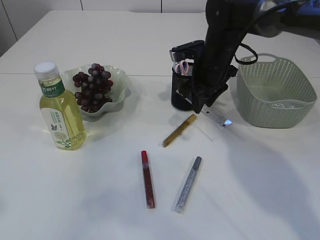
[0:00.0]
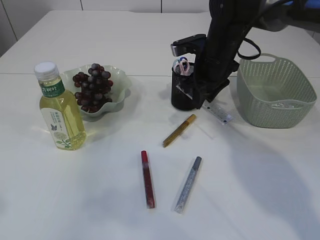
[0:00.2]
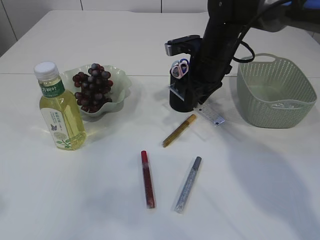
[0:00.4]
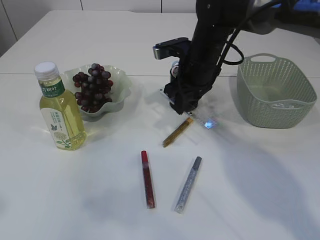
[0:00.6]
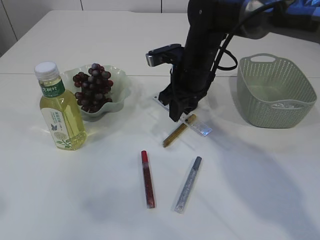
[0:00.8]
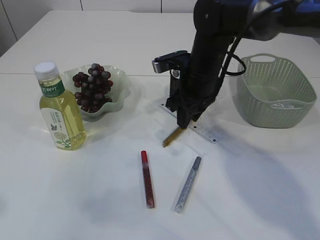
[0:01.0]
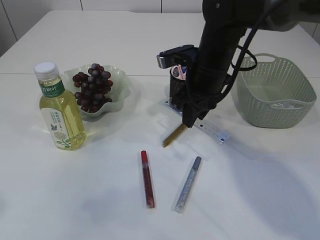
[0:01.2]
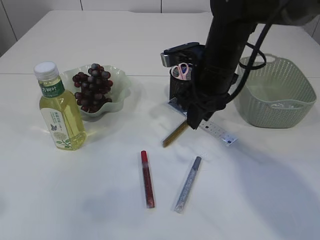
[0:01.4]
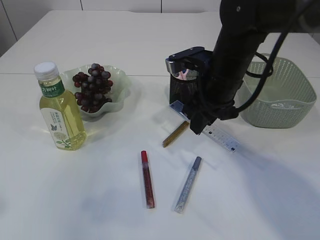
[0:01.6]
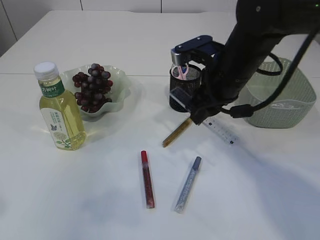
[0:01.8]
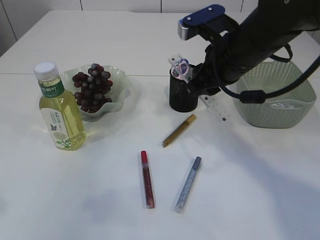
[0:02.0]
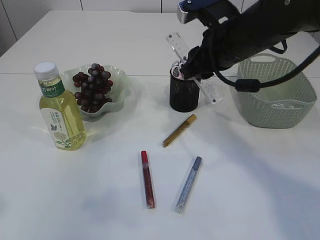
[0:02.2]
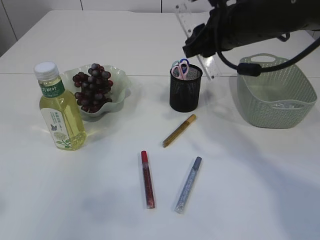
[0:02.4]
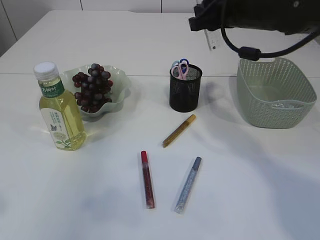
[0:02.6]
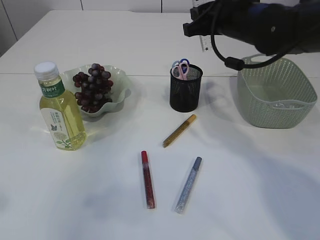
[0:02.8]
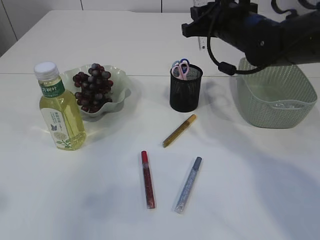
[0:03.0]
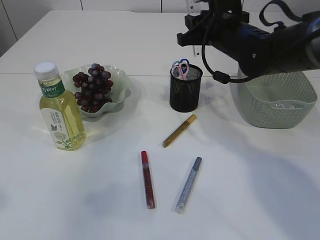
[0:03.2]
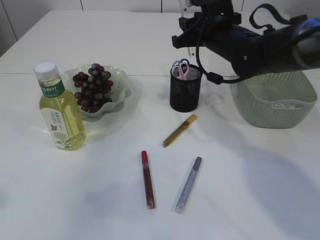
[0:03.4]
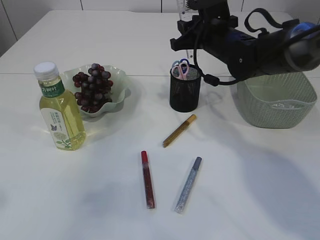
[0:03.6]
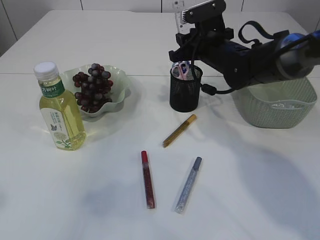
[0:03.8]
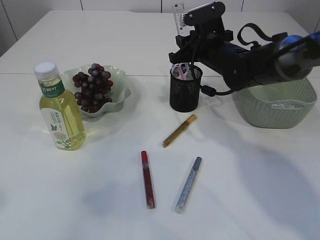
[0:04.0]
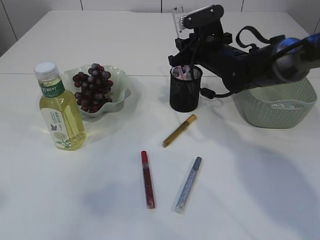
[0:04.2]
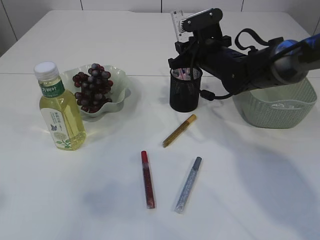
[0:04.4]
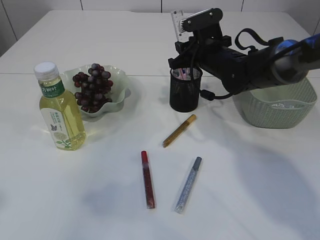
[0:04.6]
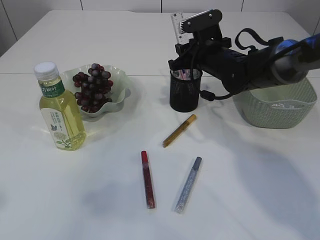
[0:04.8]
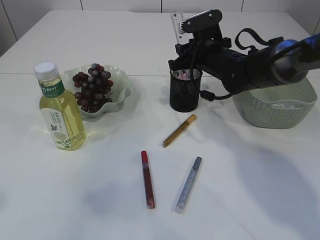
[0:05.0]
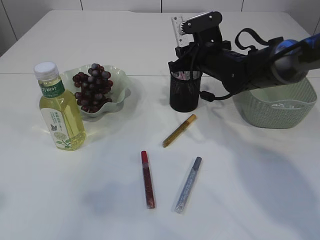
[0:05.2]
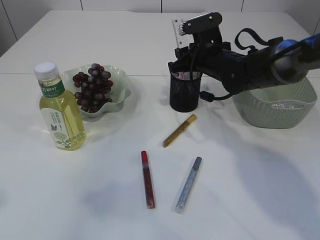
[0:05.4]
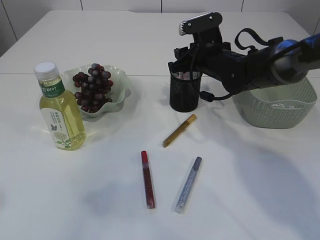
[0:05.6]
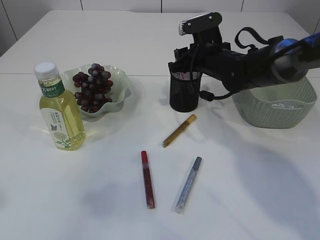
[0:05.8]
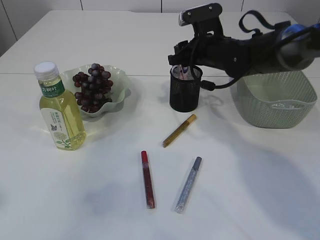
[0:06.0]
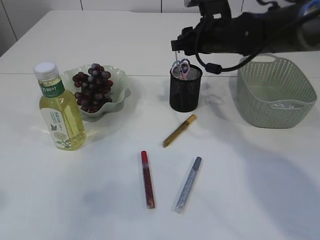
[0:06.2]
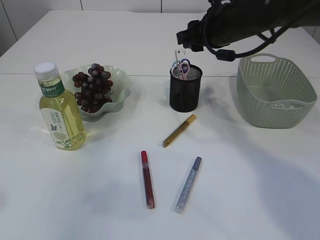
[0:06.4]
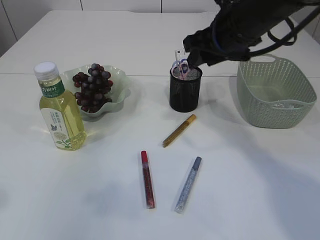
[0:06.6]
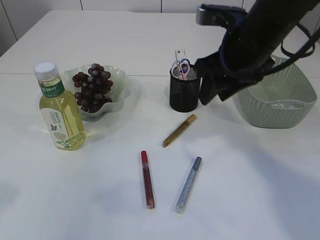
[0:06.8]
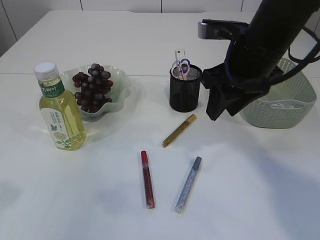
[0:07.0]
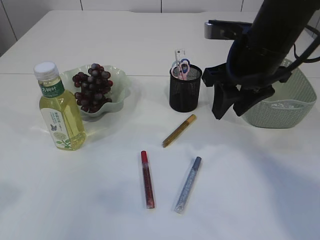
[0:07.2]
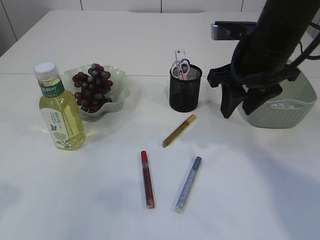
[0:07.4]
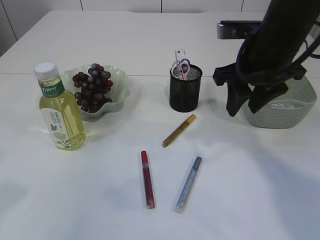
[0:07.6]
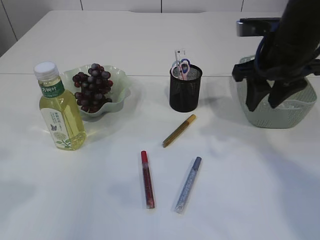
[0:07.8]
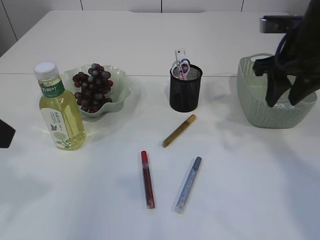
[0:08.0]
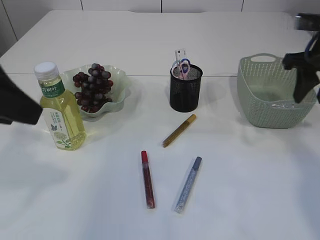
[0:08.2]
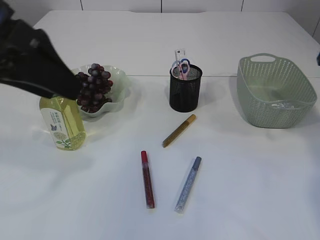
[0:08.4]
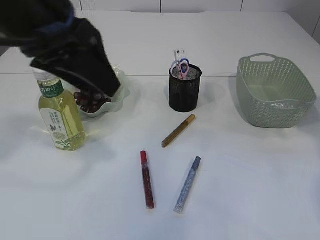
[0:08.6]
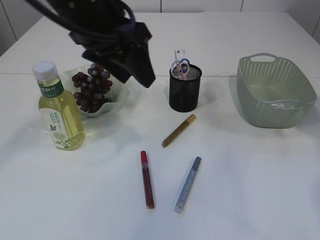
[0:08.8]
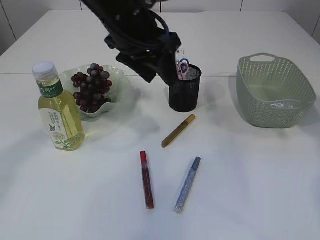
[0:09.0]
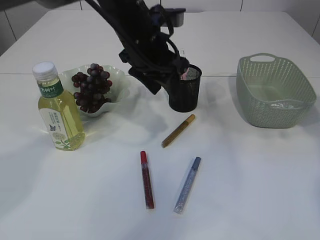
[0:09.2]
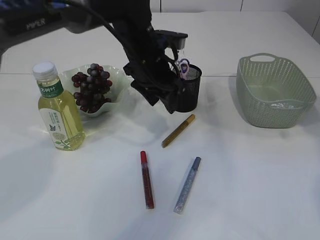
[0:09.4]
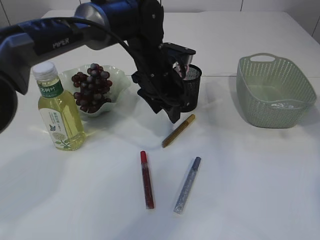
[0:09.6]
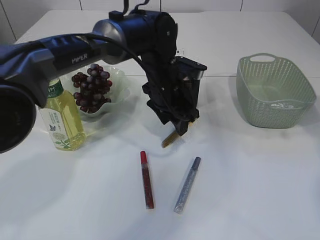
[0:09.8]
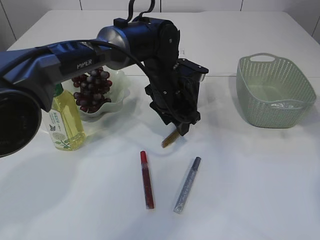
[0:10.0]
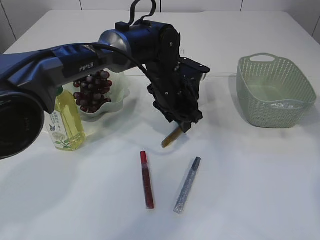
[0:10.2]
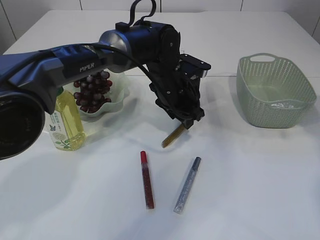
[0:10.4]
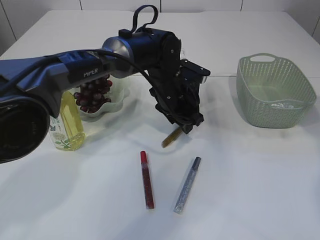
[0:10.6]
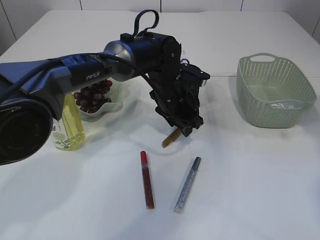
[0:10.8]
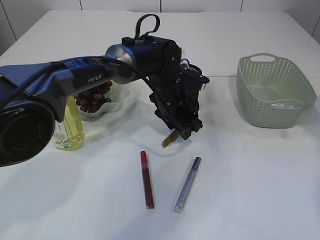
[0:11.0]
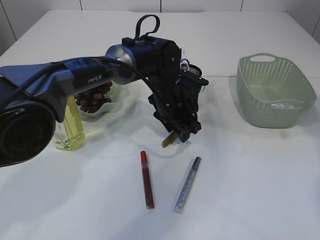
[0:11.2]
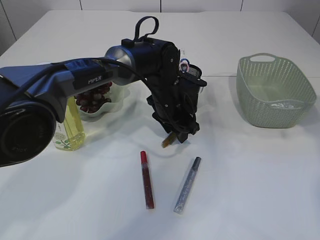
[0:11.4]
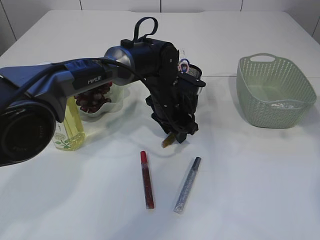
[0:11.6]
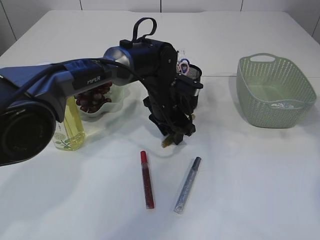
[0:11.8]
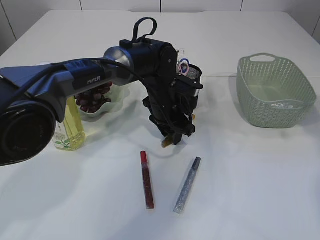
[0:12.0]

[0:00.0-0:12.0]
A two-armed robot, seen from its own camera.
Step, 0:00.0 to 0:06.4: Place the ruler into the pen holder.
0:00.0 to 0:01.6: The right gripper goes roughly 10 cm backward.
0:01.6 to 0:03.0: The right gripper travels forward by approximately 5 cm.
0:03.0 to 0:04.4: The right gripper moves downward, approximately 5 cm.
0:04.4 to 0:06.0: The grippers make only small movements.
0:06.0 to 0:07.6: The right gripper travels backward and upward by about 15 cm.
0:07.6 to 0:09.0: The right gripper heads to the right, covering some 20 cm, while the left gripper shifts about 30 cm forward and to the right.
0:09.0 to 0:10.4: The left gripper goes about 20 cm downward, to the right and forward.
0:10.4 to 0:12.0: The grippers make only small movements.

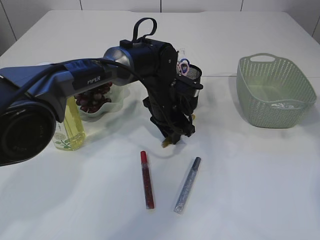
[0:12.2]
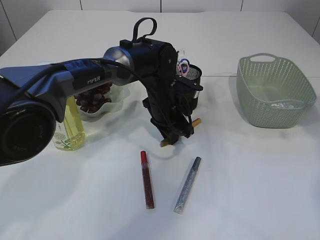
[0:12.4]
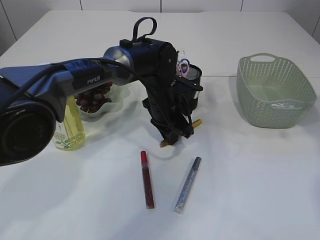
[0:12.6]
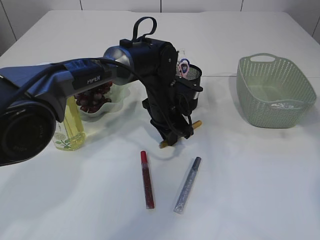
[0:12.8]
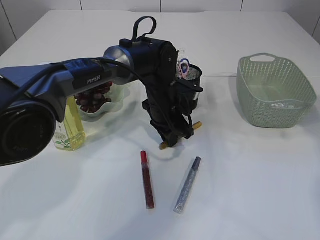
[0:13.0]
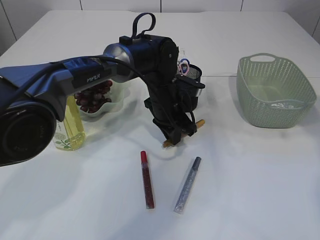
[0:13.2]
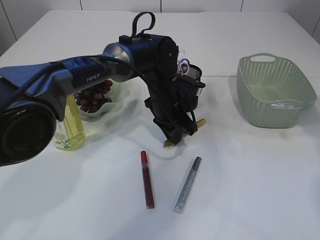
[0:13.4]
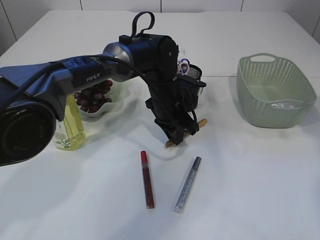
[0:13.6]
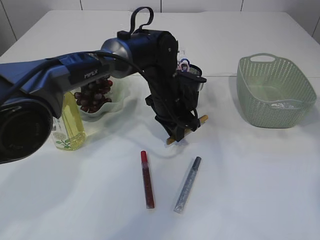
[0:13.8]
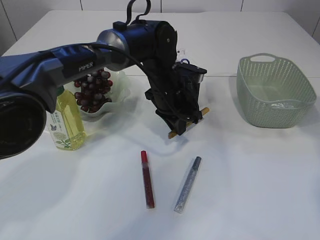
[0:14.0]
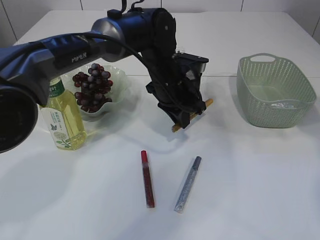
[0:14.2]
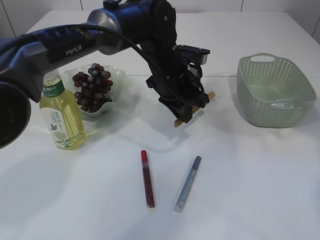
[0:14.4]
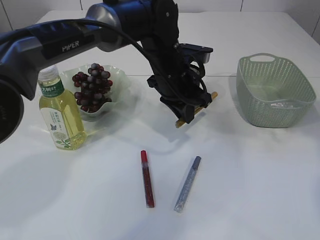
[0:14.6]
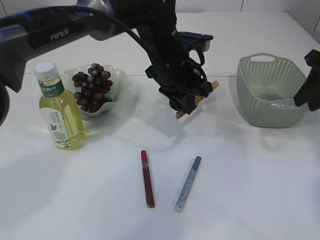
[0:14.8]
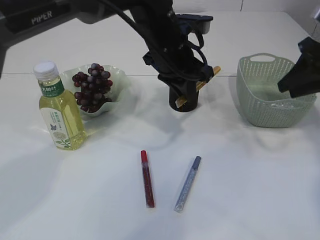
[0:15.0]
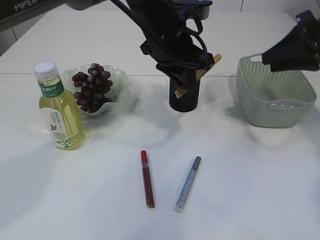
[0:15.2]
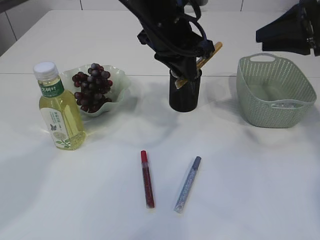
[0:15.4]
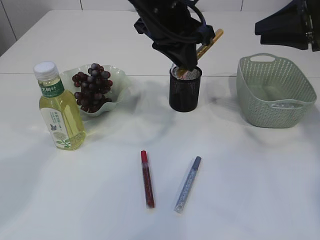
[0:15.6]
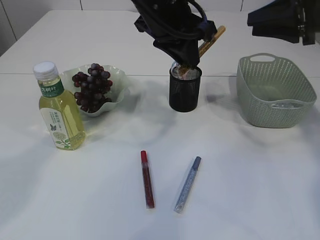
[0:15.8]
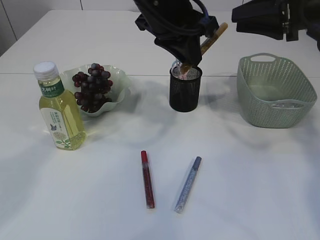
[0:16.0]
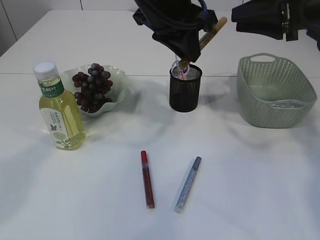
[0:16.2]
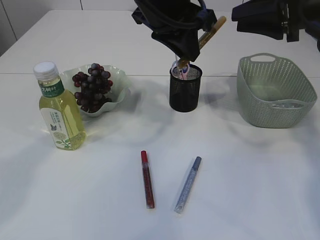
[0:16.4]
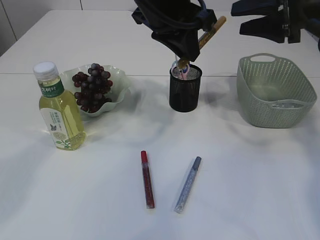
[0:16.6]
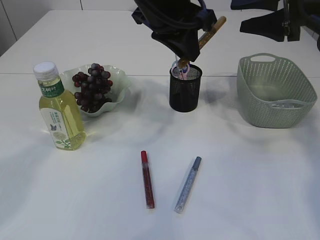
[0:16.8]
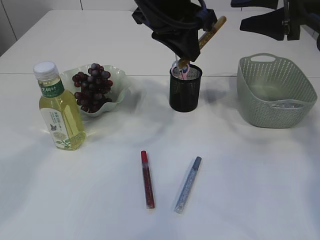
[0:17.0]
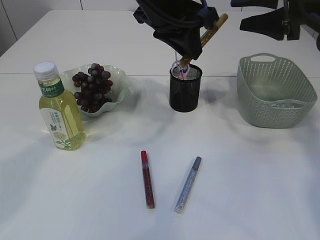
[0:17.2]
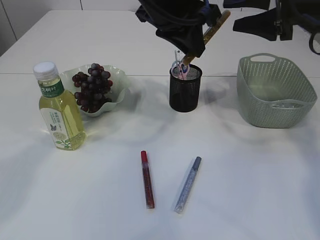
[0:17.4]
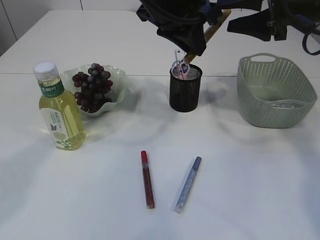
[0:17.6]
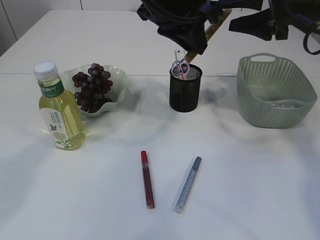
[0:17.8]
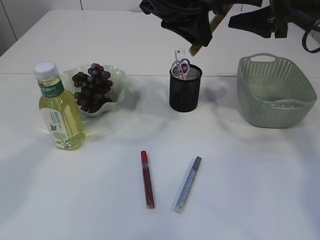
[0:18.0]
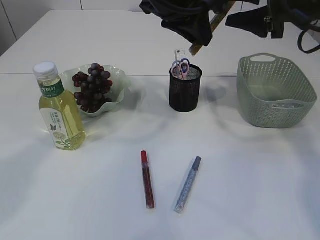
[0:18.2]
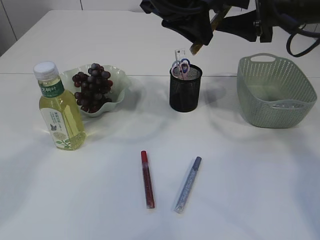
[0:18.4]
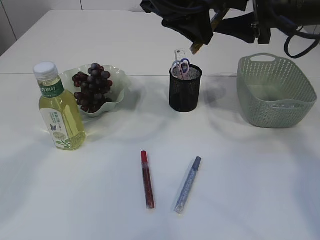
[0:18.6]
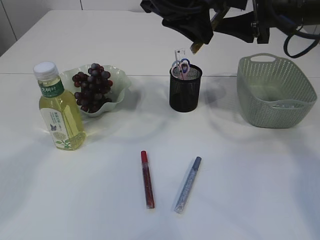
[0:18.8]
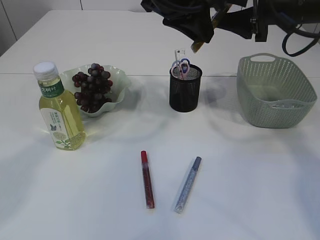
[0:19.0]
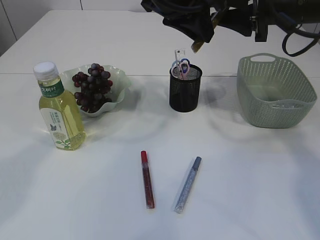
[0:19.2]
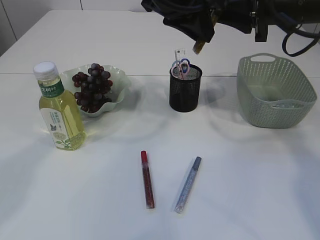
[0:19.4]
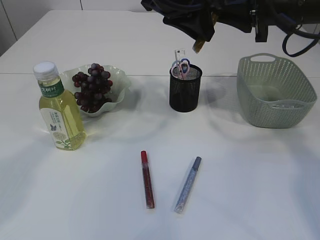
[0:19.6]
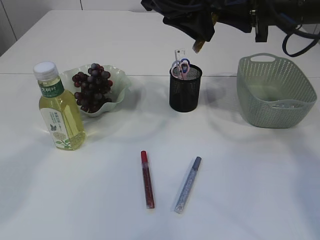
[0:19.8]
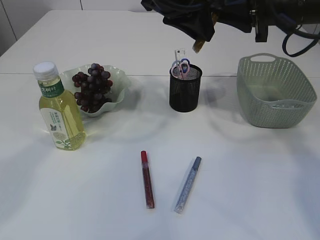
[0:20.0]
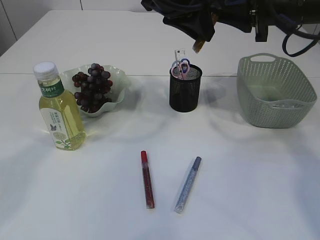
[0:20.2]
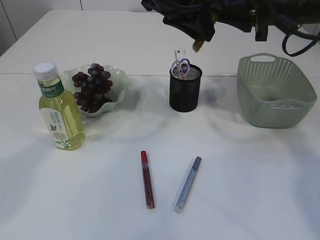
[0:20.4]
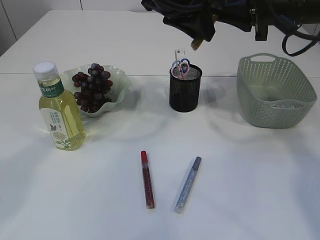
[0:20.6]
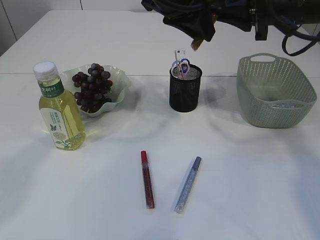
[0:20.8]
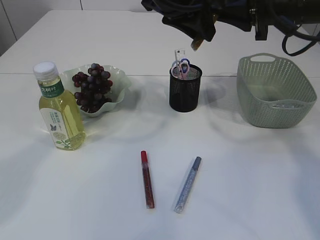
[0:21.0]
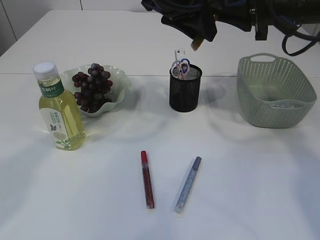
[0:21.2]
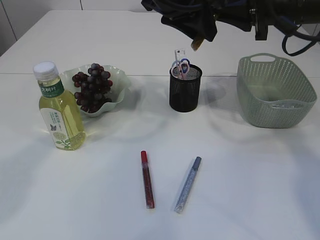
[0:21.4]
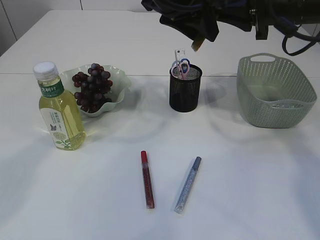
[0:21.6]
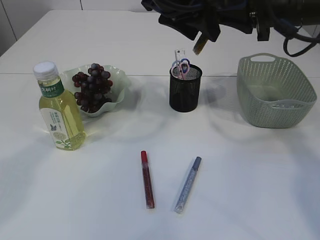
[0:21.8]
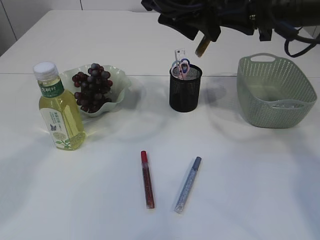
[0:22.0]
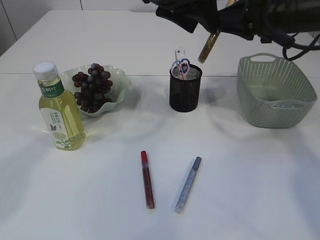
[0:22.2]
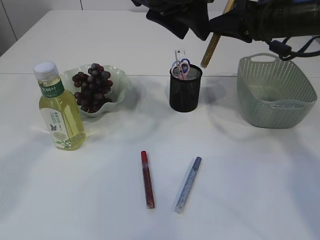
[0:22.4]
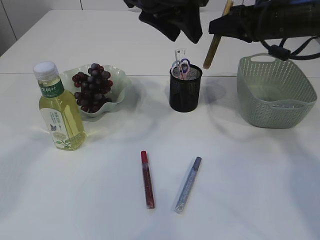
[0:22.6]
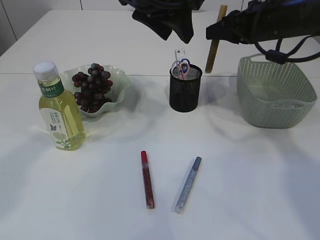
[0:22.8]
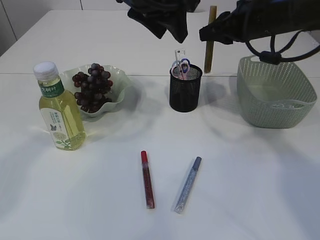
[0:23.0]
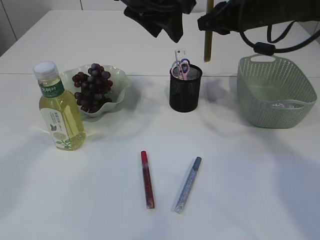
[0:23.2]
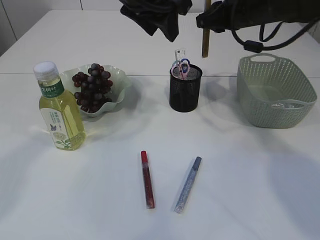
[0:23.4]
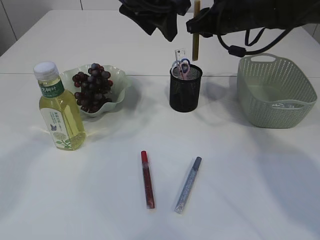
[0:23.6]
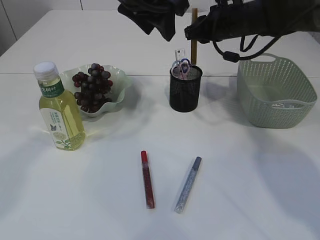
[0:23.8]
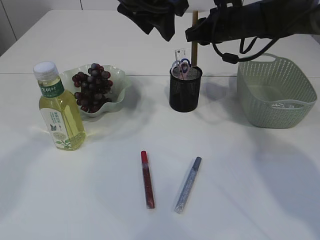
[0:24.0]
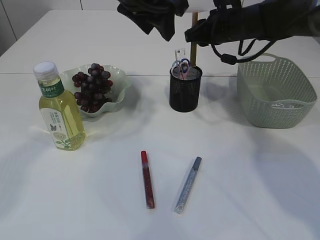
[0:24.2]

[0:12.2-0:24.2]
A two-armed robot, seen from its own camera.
Step, 0:12.2 to 0:14.4: pick up the yellow glue.
0:12.2 to 0:13.8: There are only small adjustments of the grippers.
0:13.8 to 0:15.2: The left gripper goes some 15 cm upward; the right gripper heads to the left, covering approximately 10 cm.
0:15.2 to 0:16.6: The right gripper moves roughly 5 cm. The left gripper heads upward, covering approximately 5 cm.
0:16.6 to 0:18.2: The grippers stay close to where they were, moving slightly.
0:18.2 to 0:19.8: The right gripper closes its fingers.
0:19.8 to 0:21.2: Both grippers stay about where they are.
0:22.6 to 0:24.2: The right gripper goes some 10 cm forward and to the left.
